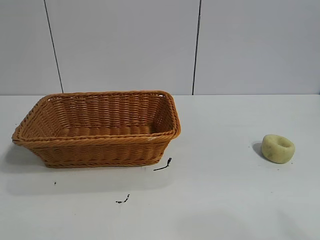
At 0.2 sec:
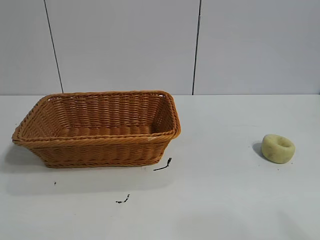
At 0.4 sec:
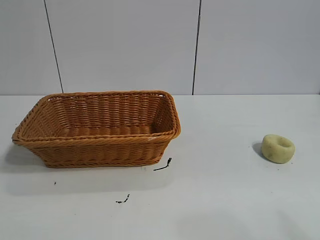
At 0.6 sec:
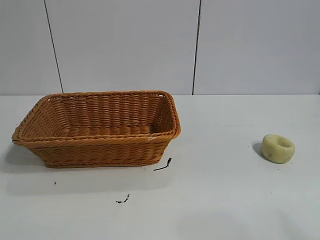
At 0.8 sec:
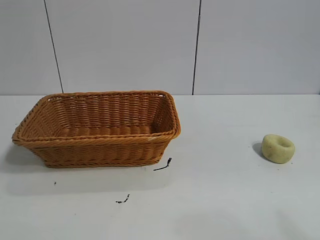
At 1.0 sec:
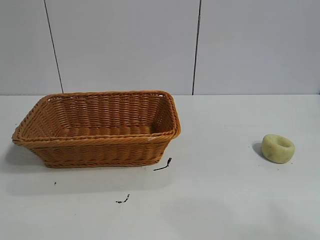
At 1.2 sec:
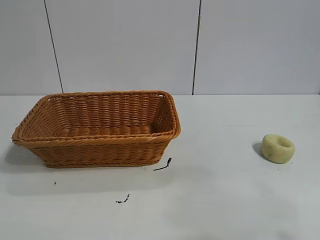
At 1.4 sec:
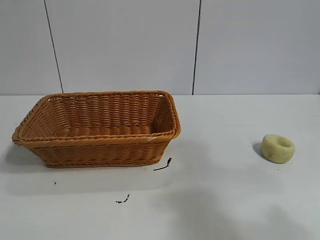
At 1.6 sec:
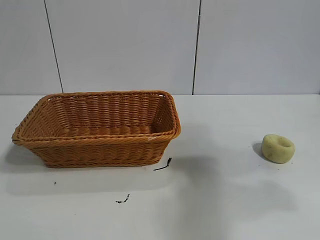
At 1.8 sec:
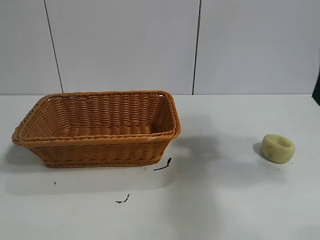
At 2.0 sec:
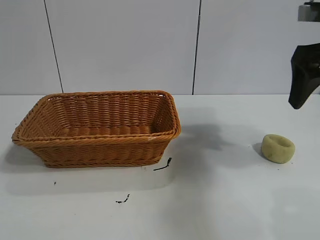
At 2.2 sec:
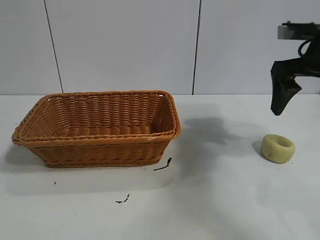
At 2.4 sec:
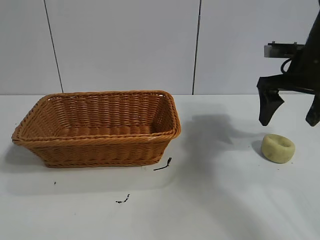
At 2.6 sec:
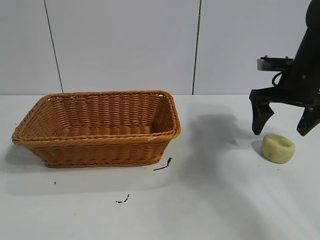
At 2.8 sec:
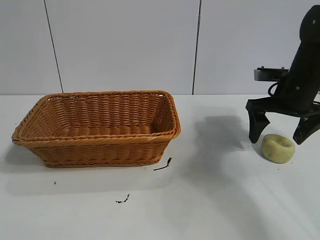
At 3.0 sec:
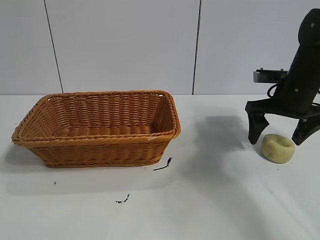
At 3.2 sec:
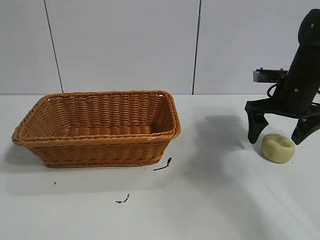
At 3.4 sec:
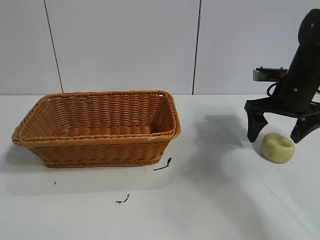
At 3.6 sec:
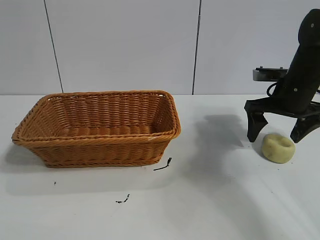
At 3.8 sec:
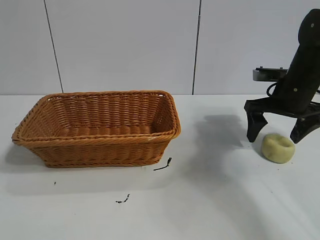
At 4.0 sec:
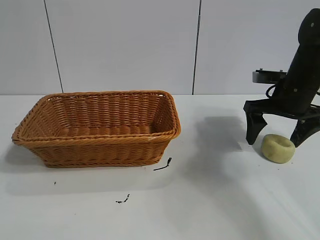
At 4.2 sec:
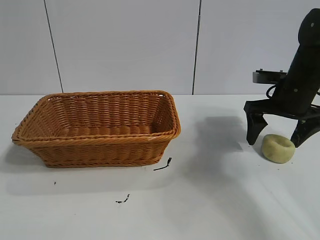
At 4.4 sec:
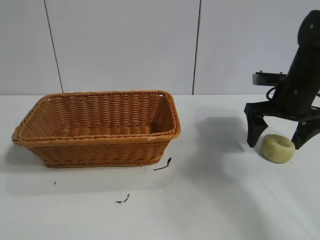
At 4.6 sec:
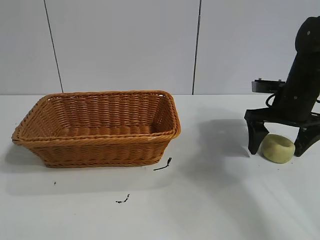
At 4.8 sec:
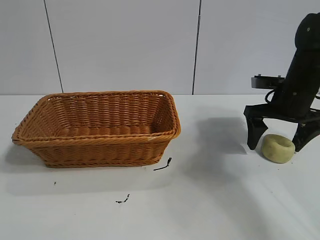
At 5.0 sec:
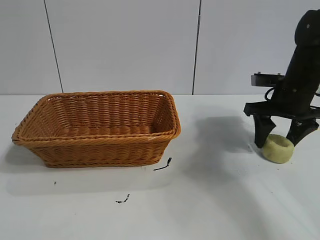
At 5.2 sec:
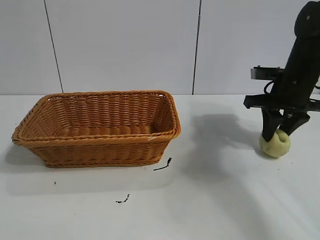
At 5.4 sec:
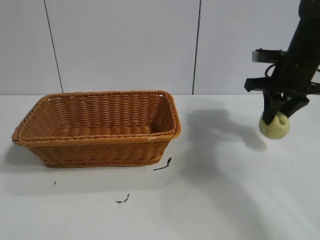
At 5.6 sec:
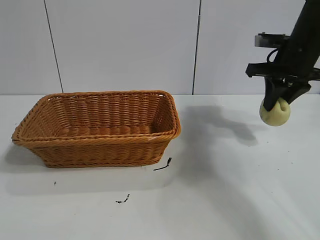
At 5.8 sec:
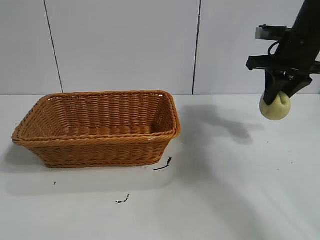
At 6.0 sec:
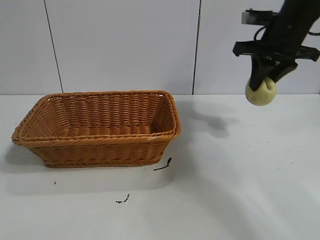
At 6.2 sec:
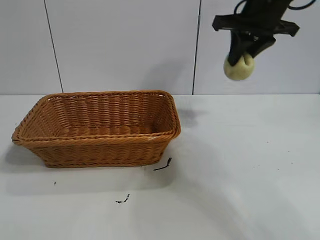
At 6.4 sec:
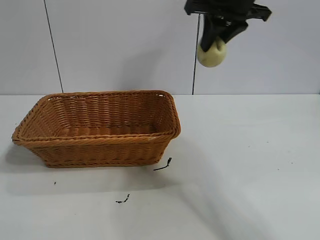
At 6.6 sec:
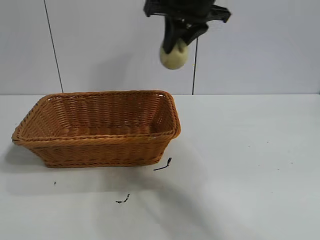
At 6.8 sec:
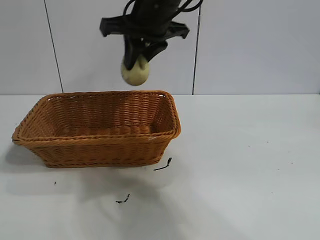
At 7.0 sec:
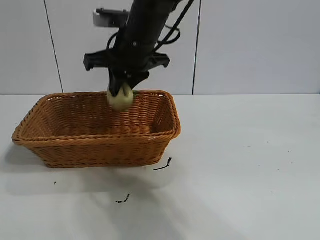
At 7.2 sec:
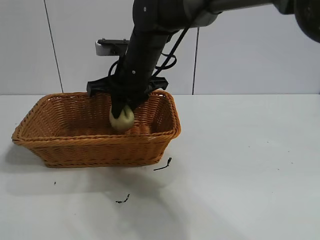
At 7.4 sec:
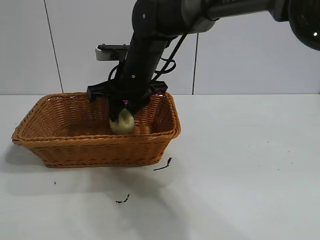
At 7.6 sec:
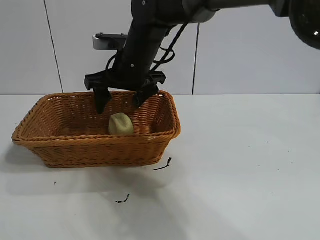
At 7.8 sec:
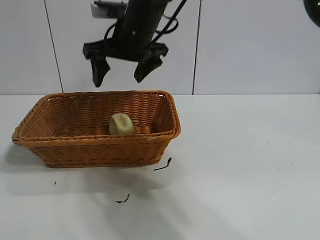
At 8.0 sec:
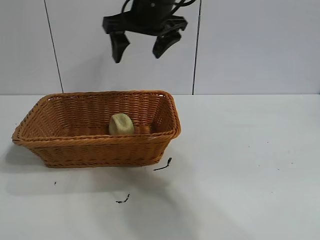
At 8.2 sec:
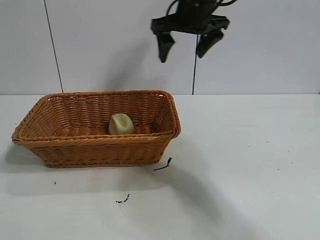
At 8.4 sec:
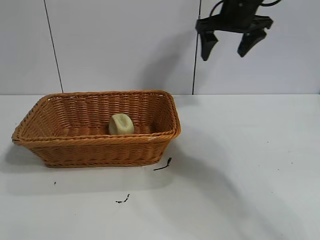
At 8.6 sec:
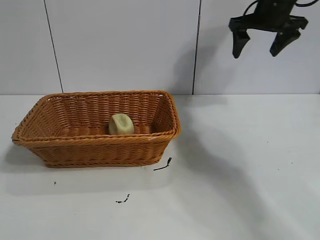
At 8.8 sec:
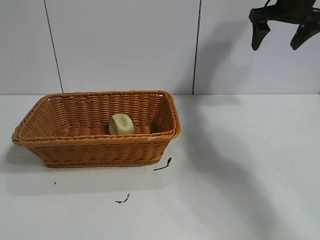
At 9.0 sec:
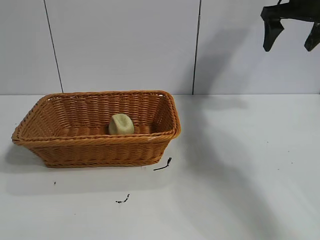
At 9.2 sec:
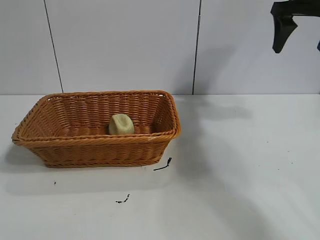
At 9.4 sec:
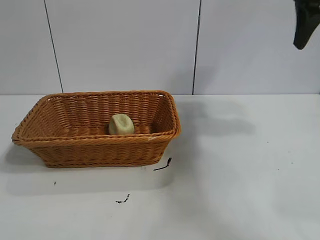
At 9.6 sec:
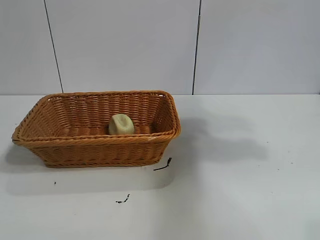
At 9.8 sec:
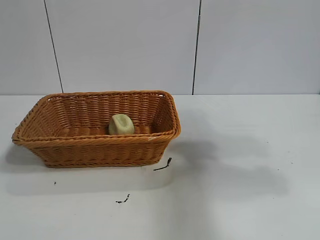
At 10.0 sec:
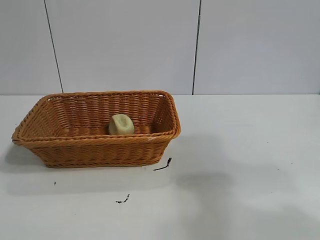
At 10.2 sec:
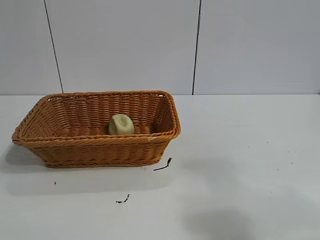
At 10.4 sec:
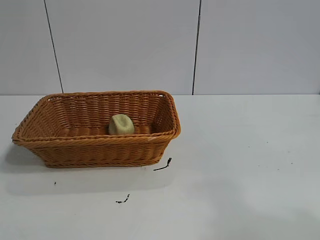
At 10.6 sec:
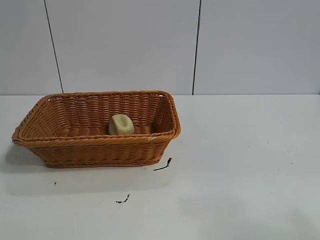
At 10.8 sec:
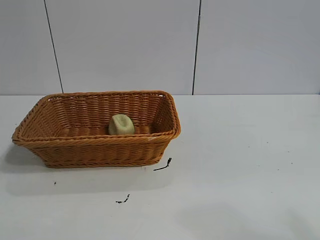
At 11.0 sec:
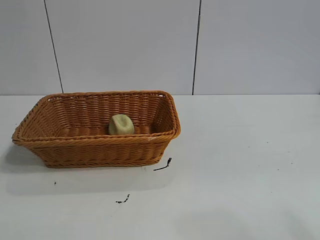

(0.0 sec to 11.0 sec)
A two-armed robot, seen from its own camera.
Task of the whole recording: pick up the egg yolk pastry and put it into the basket.
Step, 0.8 sec - 5.0 sec: Grasp egg yolk pastry with right gripper.
Step, 5.4 sec - 7.4 sec: Place the egg yolk pastry in the basket with right gripper.
